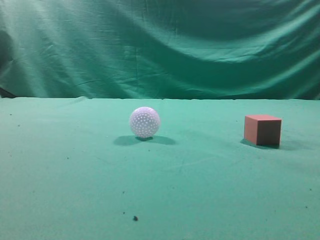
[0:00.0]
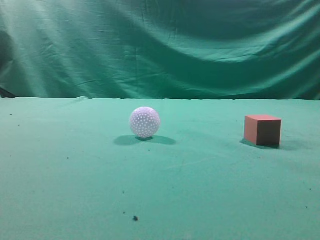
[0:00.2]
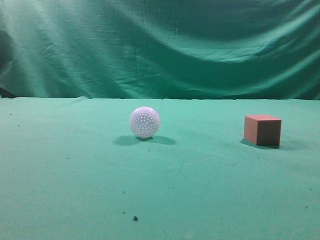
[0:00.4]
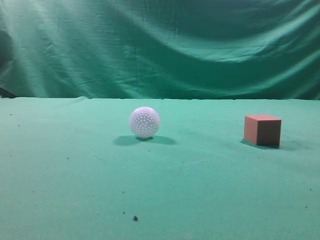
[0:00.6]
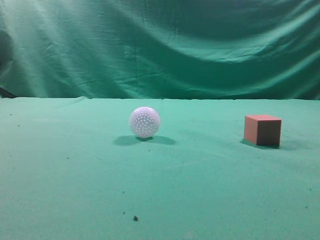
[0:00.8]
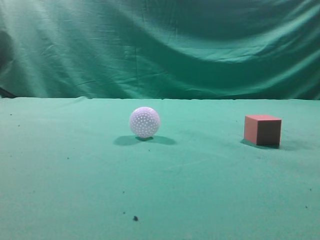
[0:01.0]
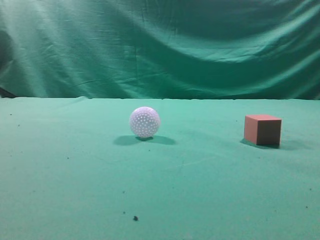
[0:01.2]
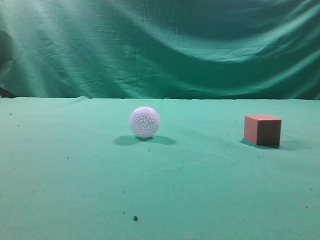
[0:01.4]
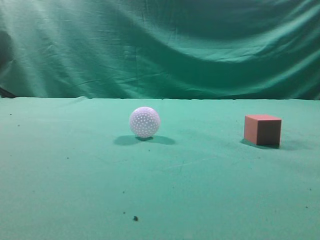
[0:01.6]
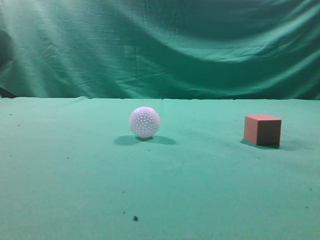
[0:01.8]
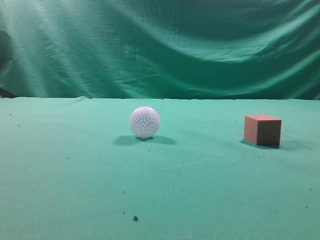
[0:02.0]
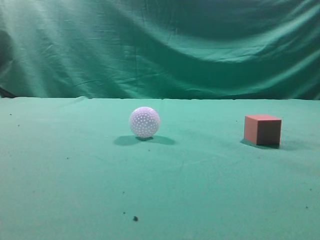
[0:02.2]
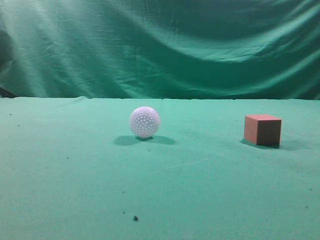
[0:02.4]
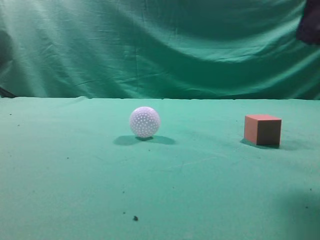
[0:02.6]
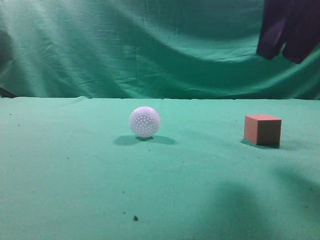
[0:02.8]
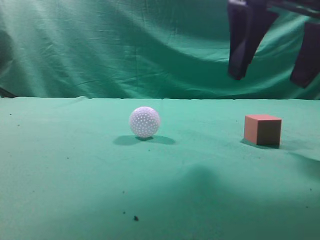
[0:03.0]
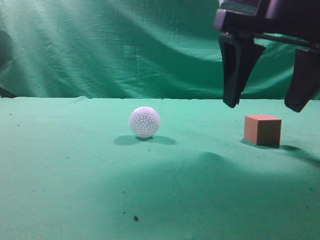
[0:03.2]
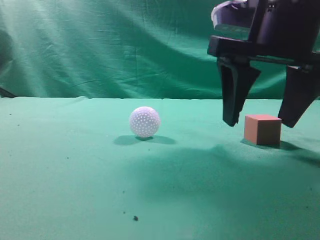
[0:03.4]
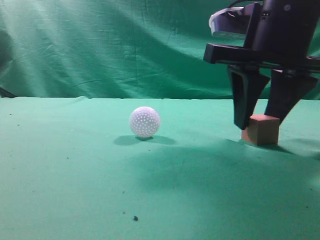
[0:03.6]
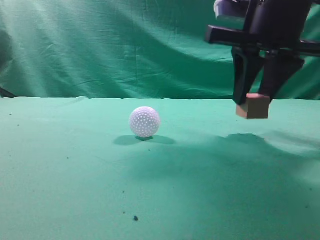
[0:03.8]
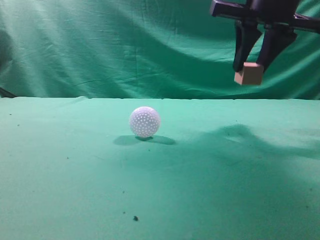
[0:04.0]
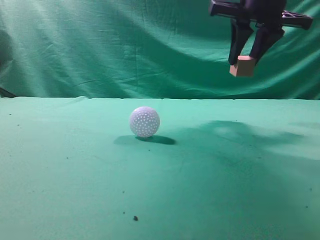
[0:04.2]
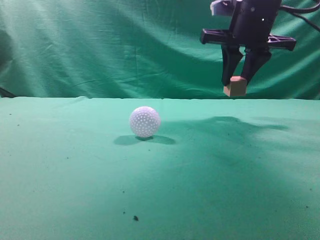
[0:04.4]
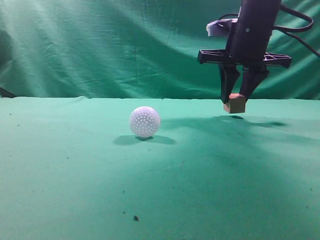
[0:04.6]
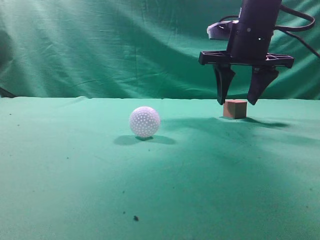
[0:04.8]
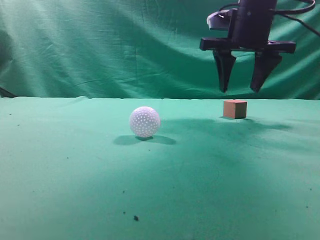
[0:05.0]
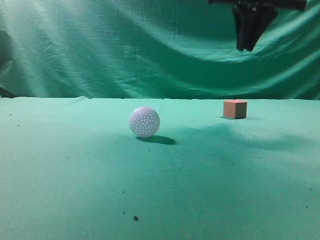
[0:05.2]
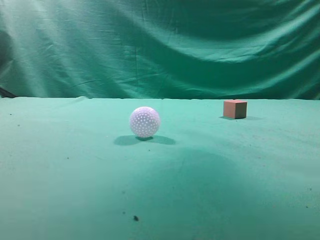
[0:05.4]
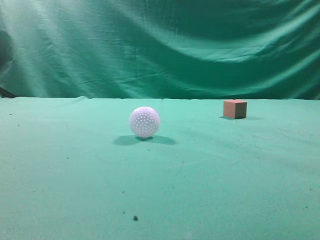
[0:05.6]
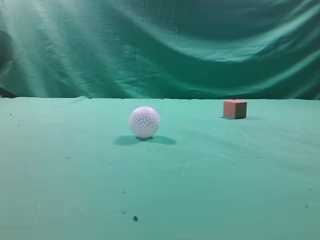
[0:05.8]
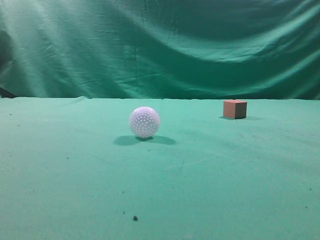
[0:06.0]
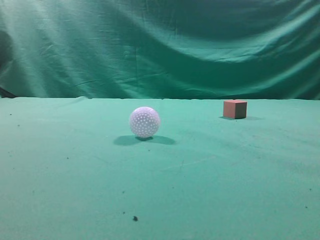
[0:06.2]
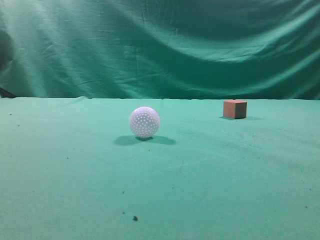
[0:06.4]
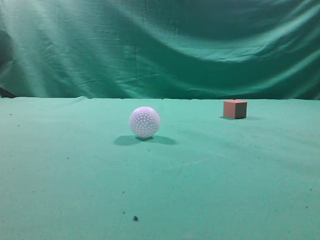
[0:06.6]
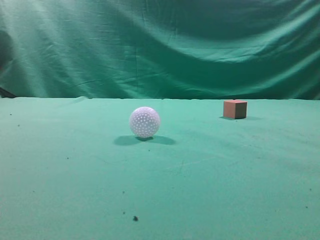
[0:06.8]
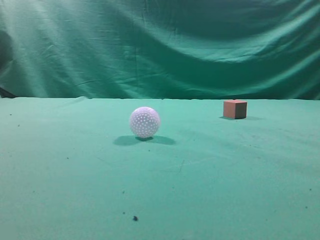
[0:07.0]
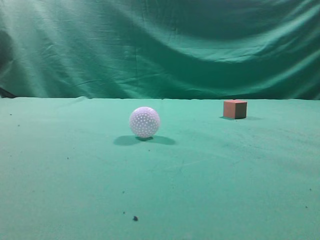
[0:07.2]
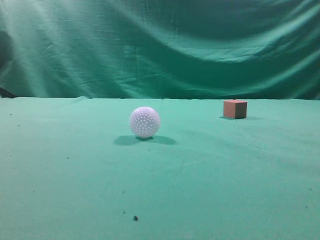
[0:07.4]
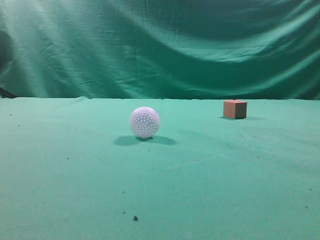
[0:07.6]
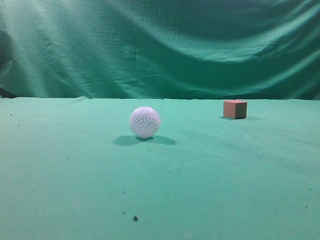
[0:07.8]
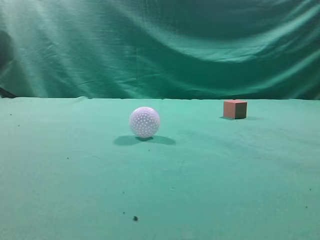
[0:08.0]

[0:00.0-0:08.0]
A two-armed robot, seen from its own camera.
Task of the whole recording: pick up the cube block and place it in another position on the table.
Step, 0:00.0 to 0:03.6: Pick up the small cube.
Step, 0:04.0 to 0:04.8: Place the small cube on the ahead of the table.
0:01.6 to 0:03.2: The right gripper moves forward and to the left, about 25 cm, and opens.
0:03.2 to 0:04.8: The right gripper heads forward, covering approximately 15 cm, and closes, then reopens.
0:04.8 to 0:06.4: The right gripper travels backward and upward by some 40 cm, and closes its fingers.
